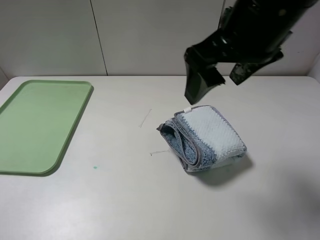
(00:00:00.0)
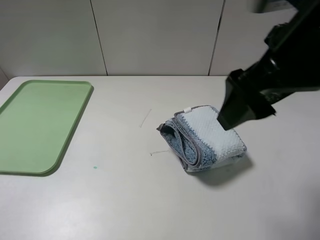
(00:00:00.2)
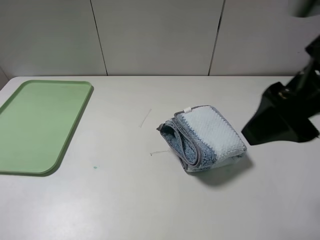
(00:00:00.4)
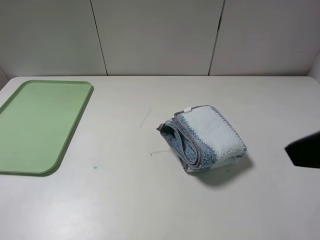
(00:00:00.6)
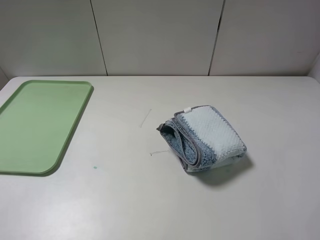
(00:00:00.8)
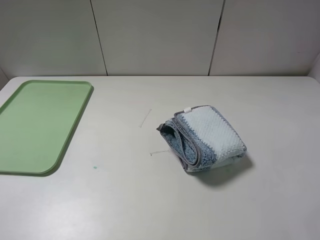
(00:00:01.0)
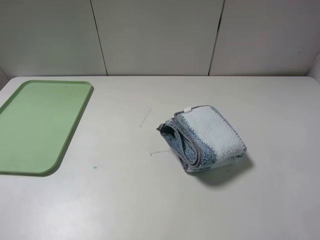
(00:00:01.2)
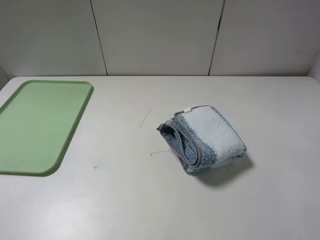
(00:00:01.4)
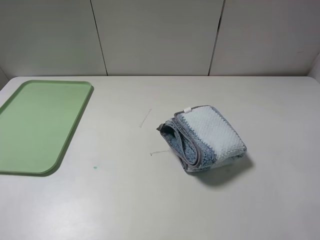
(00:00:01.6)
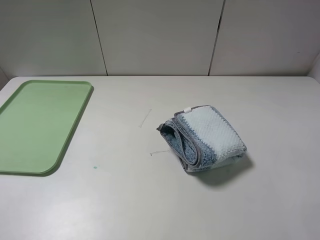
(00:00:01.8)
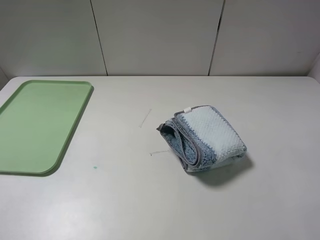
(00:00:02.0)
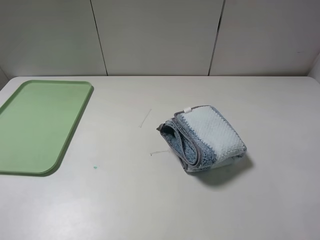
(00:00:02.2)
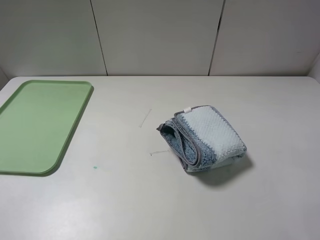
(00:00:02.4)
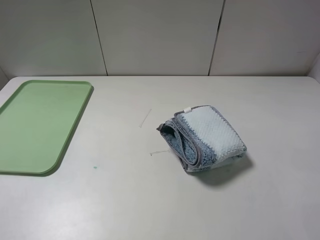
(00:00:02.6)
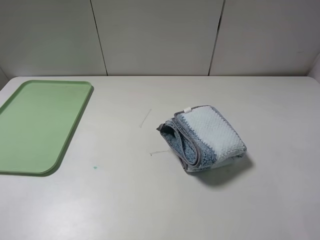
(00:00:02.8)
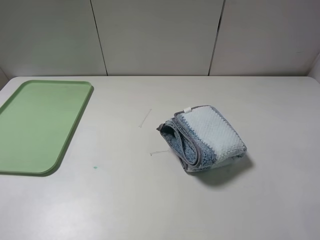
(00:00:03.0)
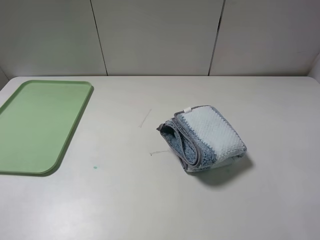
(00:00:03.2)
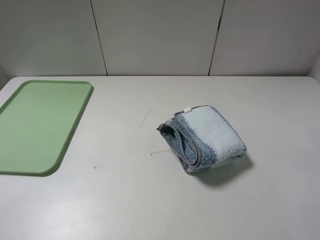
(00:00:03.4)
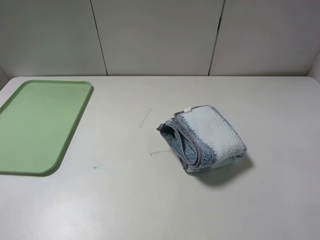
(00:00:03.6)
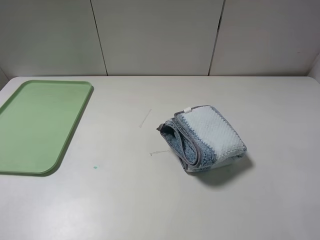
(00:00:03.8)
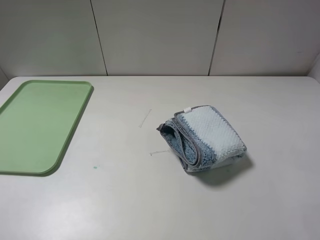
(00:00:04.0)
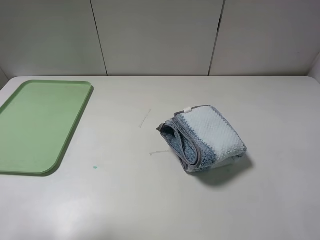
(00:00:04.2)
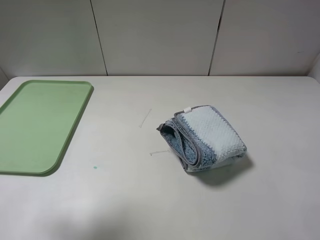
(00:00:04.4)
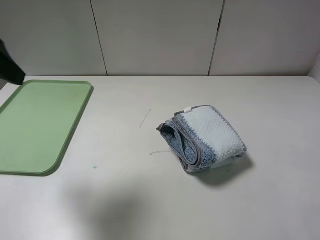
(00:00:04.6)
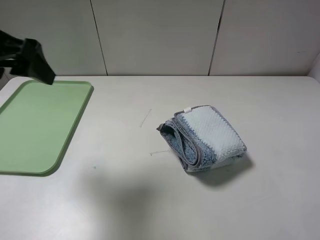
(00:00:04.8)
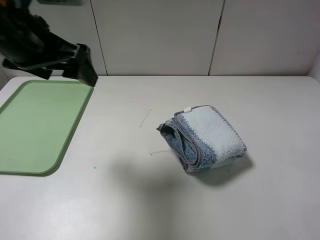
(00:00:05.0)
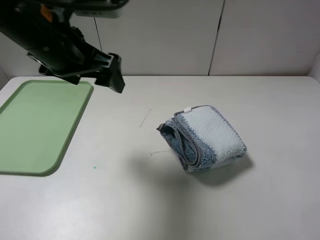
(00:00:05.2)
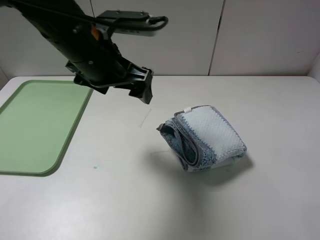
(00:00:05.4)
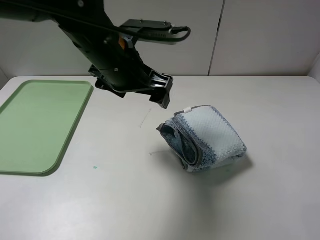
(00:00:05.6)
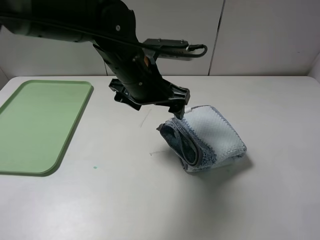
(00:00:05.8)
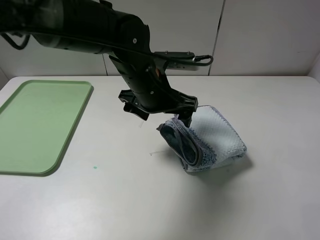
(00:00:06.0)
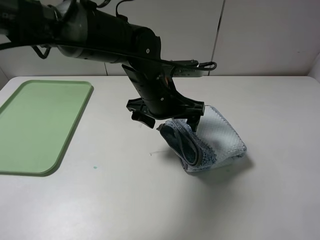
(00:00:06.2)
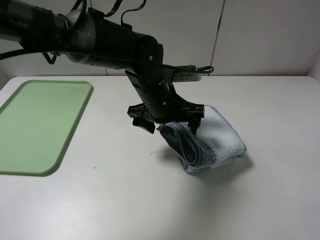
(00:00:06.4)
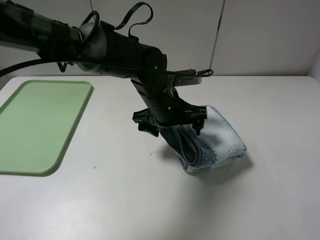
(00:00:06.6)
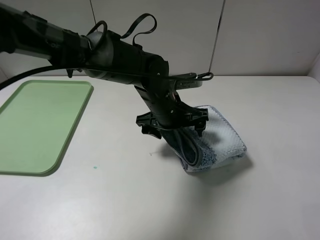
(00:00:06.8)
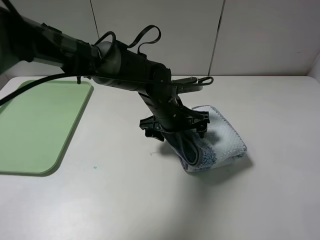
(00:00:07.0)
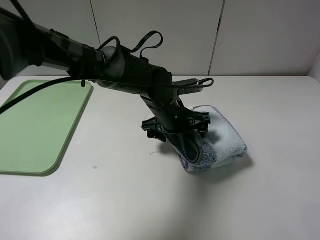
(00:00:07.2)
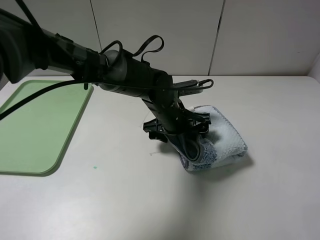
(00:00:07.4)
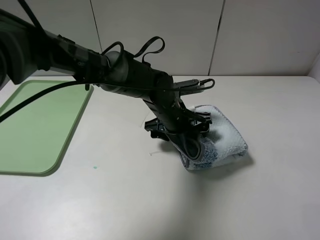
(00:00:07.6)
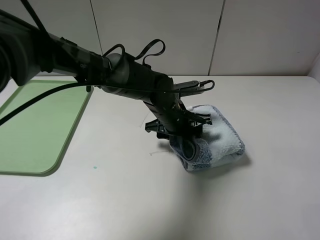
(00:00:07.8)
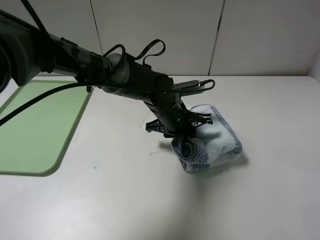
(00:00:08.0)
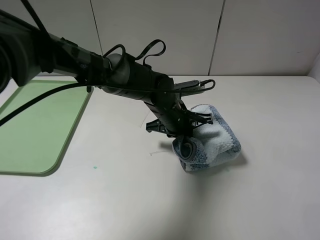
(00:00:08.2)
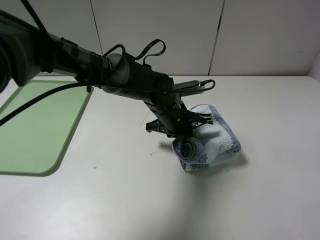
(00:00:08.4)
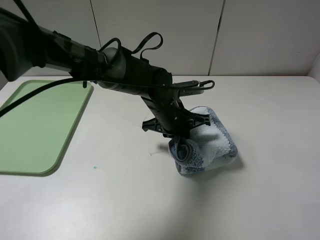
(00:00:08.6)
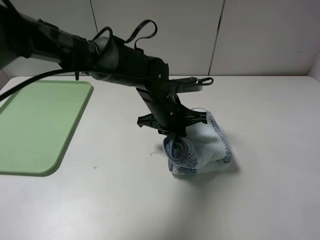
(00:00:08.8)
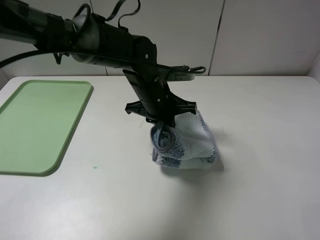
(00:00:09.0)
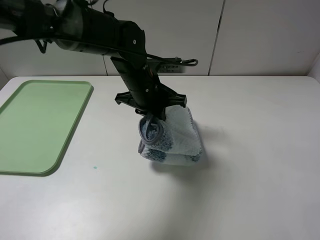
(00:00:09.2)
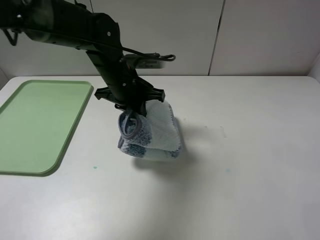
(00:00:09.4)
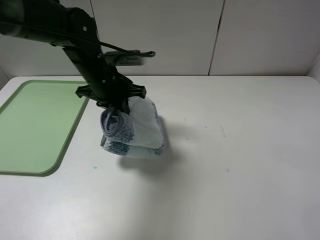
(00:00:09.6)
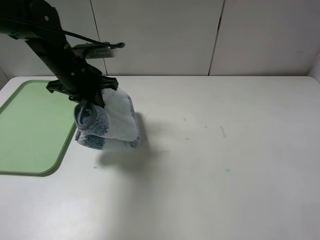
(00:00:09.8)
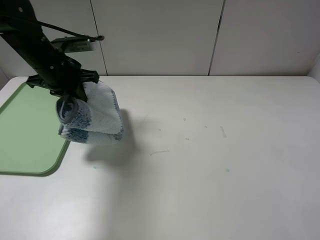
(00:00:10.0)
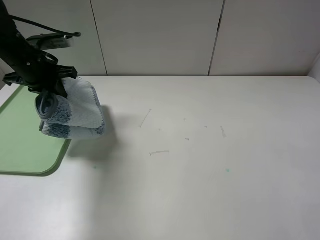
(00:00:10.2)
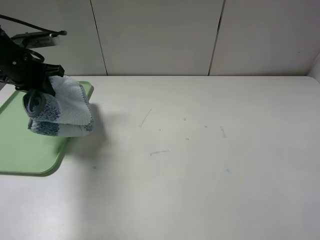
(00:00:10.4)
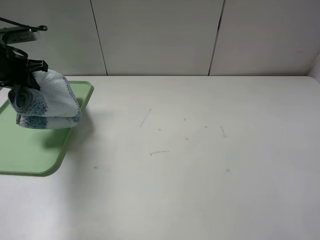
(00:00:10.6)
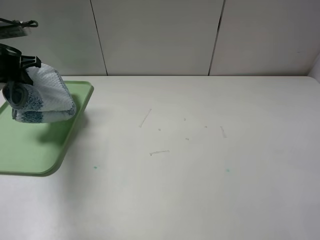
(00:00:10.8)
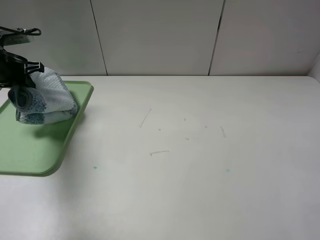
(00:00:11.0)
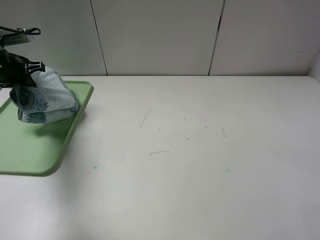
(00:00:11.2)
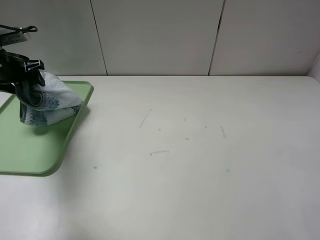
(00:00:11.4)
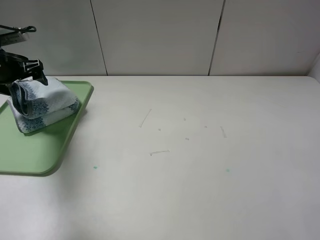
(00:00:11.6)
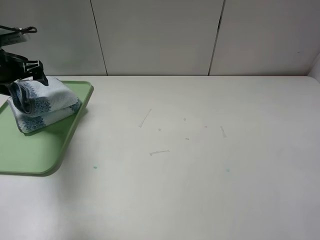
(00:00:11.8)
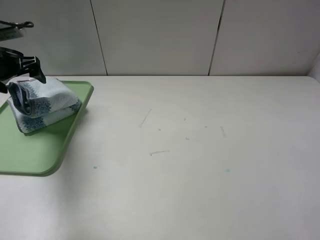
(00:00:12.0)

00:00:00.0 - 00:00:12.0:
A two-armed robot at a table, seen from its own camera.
Step, 00:00:00.0 - 00:00:08.8: Grasp the blue white towel with the left gripper.
00:00:00.0 - 00:00:01.6: The right gripper goes about 30 cm backward and to the right.
00:00:01.6 - 00:00:03.0: Neither gripper changes place.
00:00:03.0 - 00:00:04.4: The left gripper moves forward and upward, some 15 cm.
00:00:04.4 - 00:00:06.0: The left gripper moves to the right, downward and forward, about 35 cm.
00:00:06.0 - 00:00:07.6: The left gripper goes some 10 cm downward.
00:00:07.6 - 00:00:09.0: The left gripper travels upward by some 5 cm, and closes its fingers.
00:00:09.0 - 00:00:10.4: The left gripper shifts some 30 cm to the left.
00:00:10.4 - 00:00:12.0: The left gripper travels to the left by approximately 5 cm, and opens its fingers.

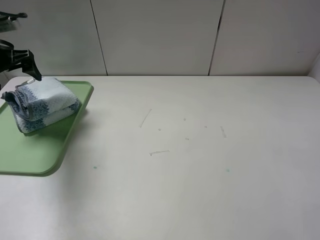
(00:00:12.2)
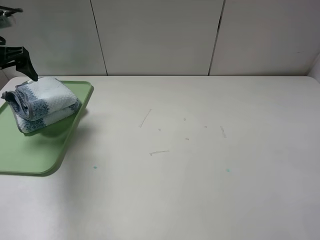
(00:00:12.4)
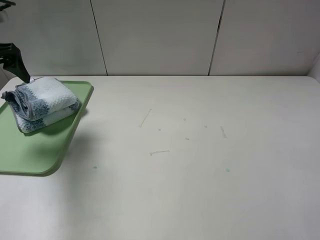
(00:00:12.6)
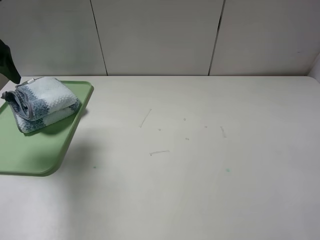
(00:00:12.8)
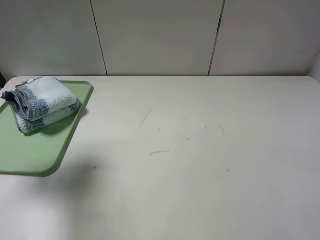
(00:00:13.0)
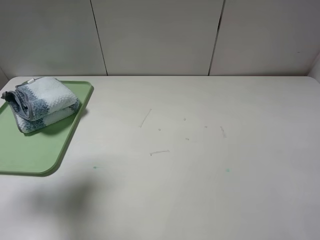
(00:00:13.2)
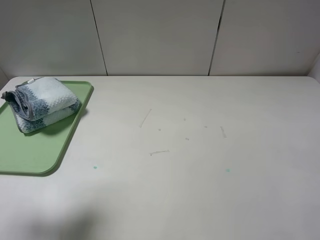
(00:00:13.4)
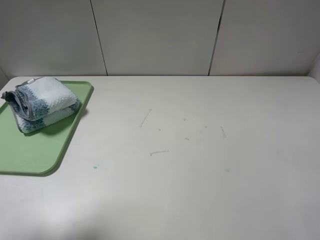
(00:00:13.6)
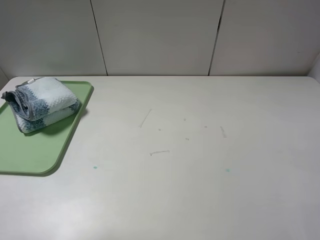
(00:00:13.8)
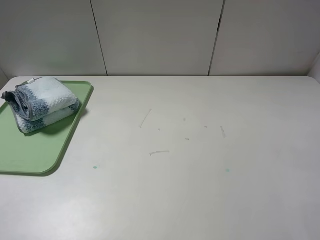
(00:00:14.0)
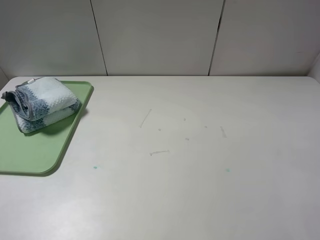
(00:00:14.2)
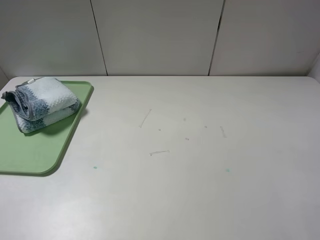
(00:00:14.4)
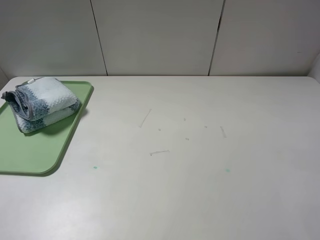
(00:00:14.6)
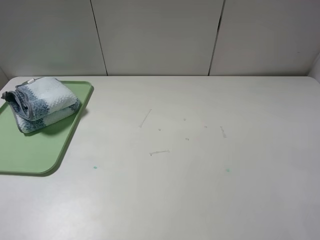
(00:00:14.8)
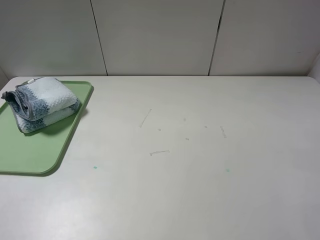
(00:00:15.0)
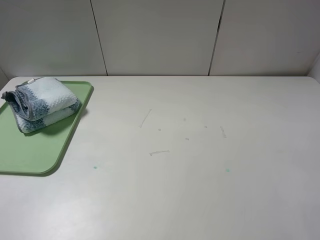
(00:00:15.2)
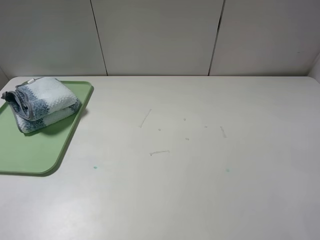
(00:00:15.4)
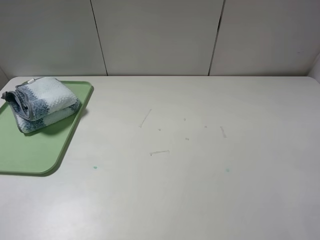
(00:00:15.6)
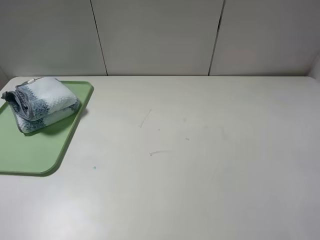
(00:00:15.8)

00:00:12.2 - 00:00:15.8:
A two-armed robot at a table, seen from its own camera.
00:00:12.2 - 00:00:14.0: The left gripper is displaced backward and upward by roughly 35 cm.
